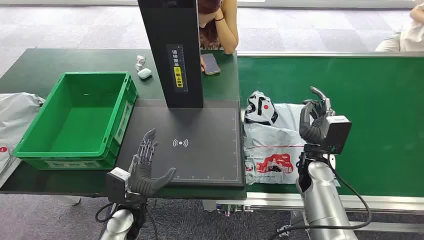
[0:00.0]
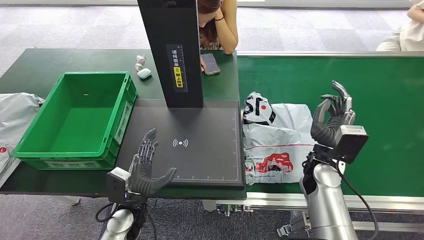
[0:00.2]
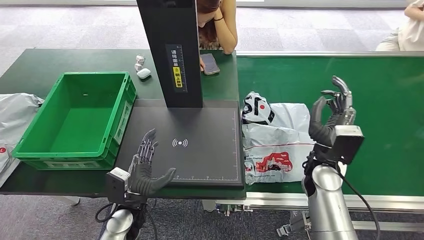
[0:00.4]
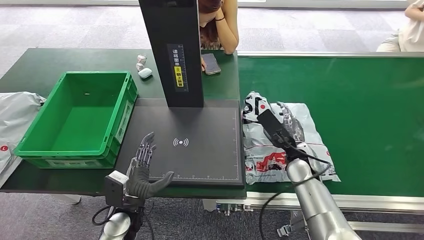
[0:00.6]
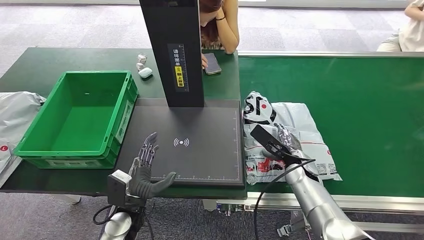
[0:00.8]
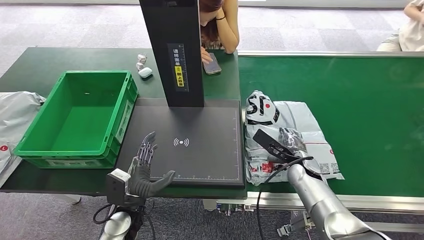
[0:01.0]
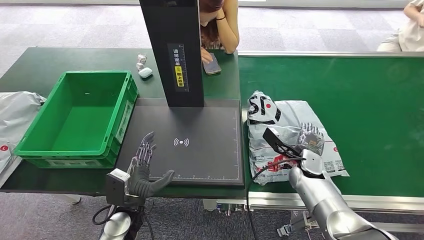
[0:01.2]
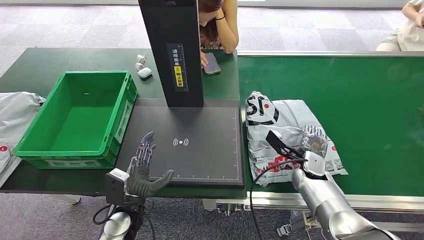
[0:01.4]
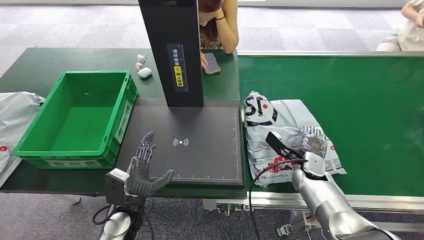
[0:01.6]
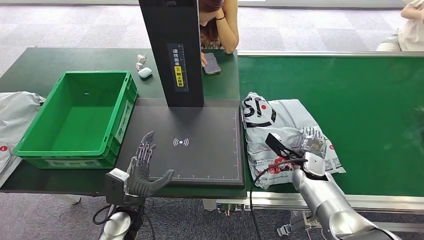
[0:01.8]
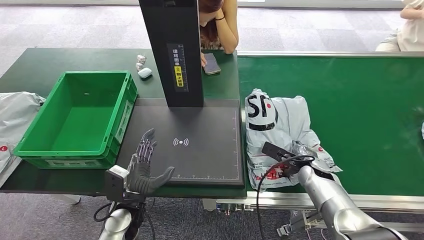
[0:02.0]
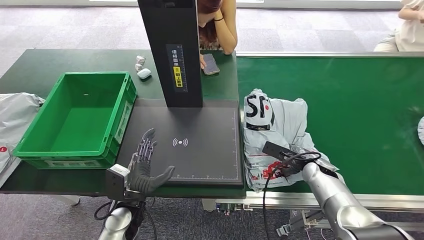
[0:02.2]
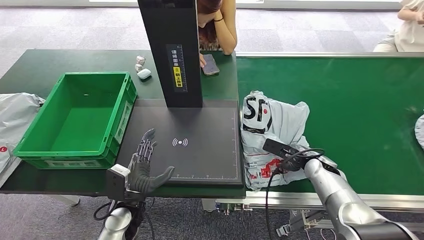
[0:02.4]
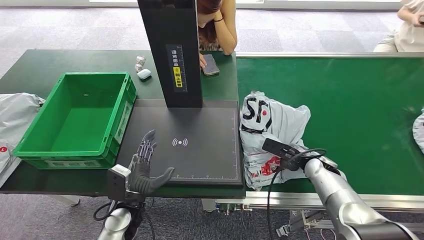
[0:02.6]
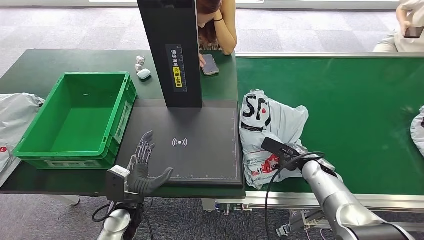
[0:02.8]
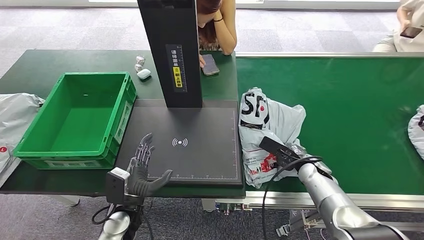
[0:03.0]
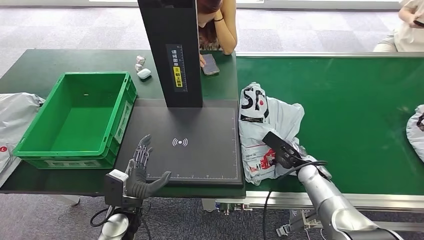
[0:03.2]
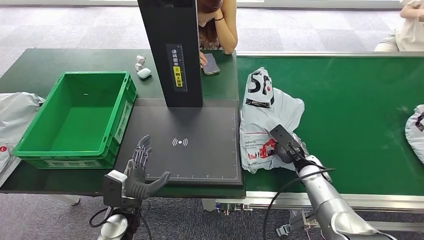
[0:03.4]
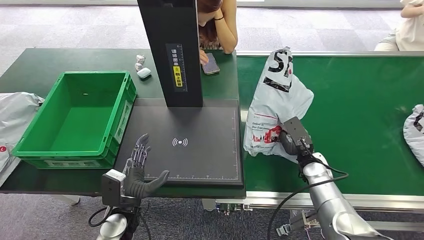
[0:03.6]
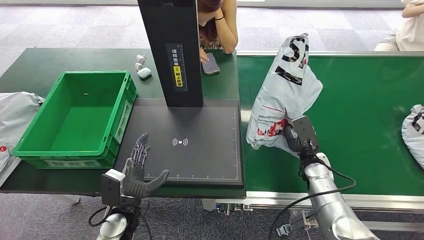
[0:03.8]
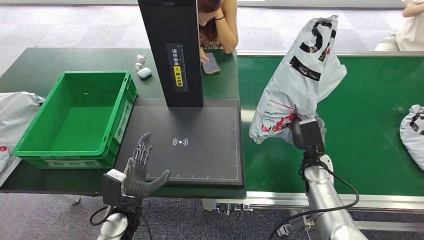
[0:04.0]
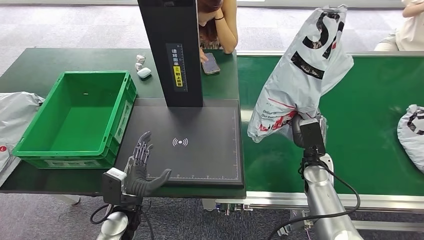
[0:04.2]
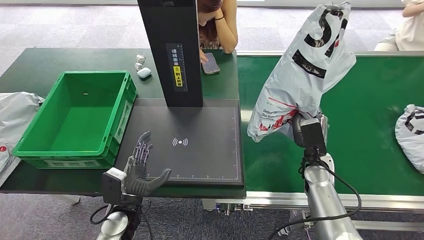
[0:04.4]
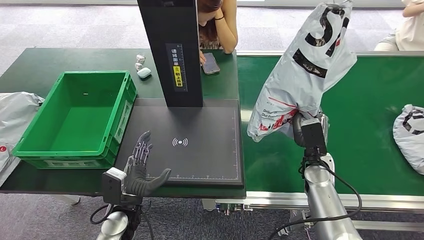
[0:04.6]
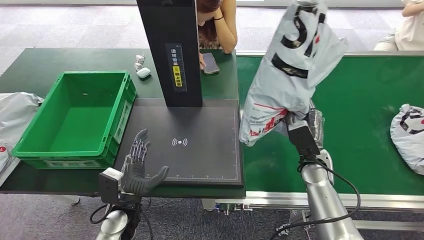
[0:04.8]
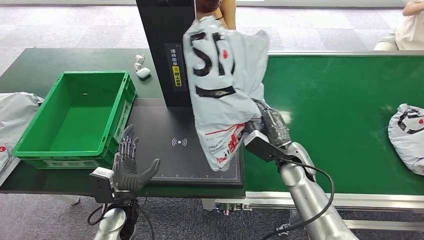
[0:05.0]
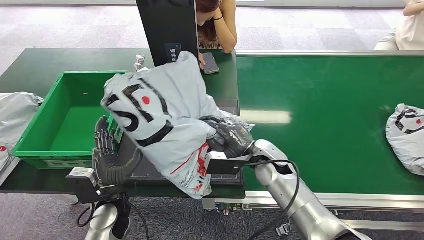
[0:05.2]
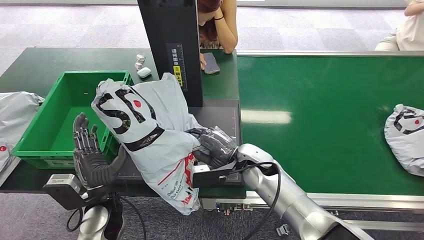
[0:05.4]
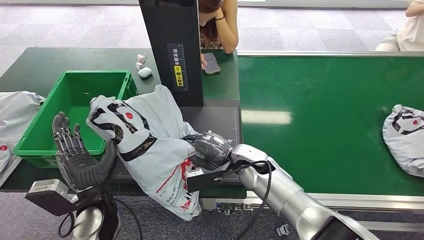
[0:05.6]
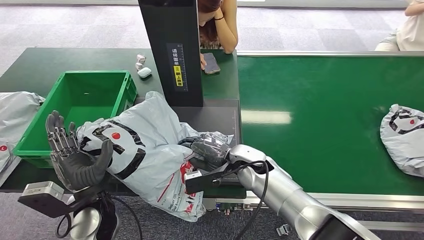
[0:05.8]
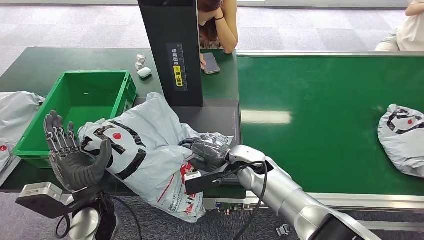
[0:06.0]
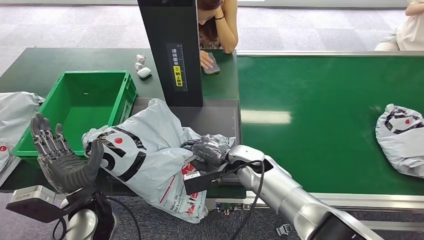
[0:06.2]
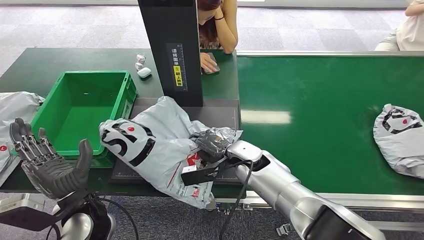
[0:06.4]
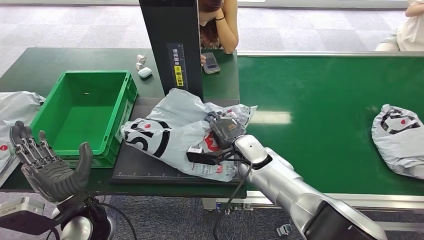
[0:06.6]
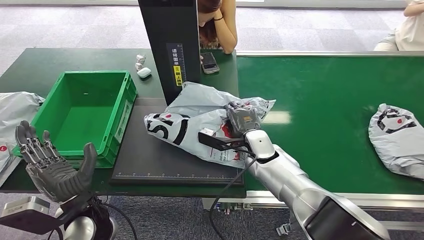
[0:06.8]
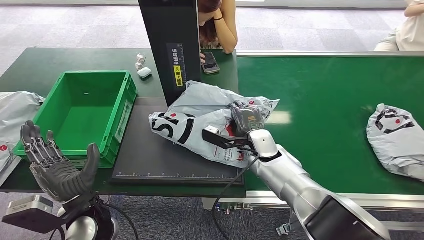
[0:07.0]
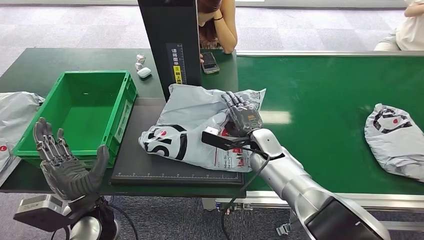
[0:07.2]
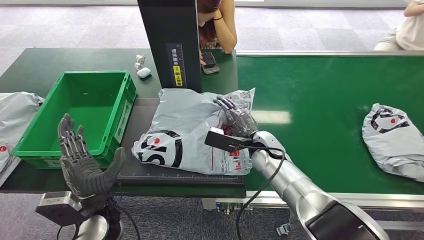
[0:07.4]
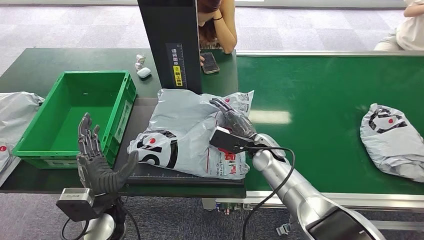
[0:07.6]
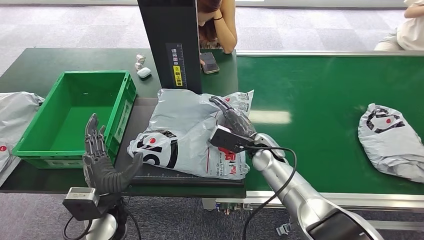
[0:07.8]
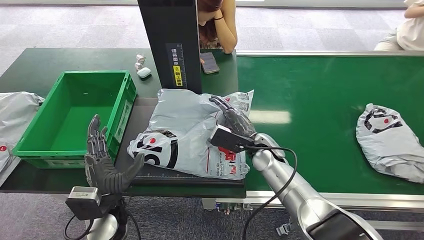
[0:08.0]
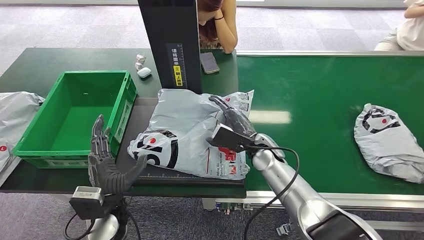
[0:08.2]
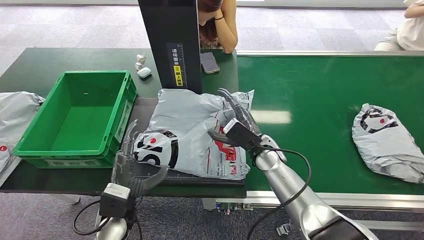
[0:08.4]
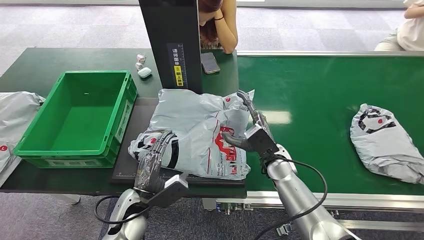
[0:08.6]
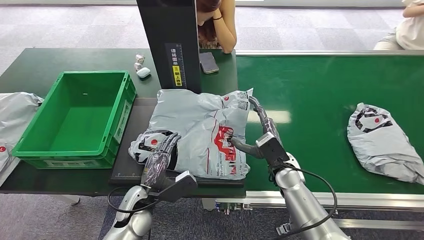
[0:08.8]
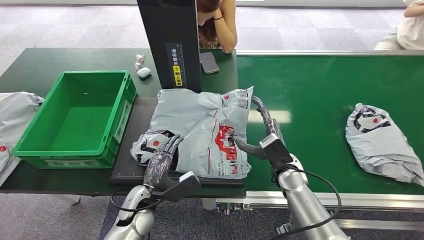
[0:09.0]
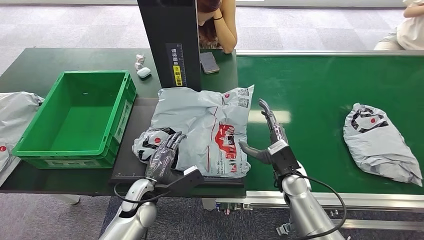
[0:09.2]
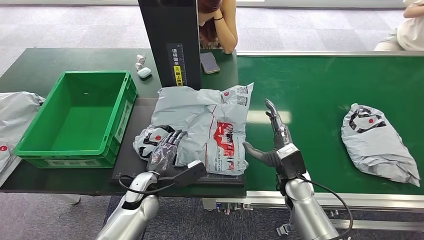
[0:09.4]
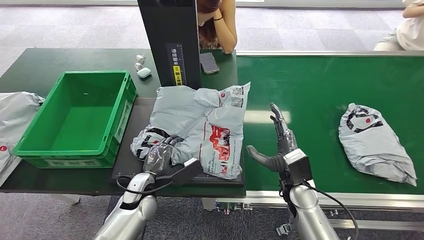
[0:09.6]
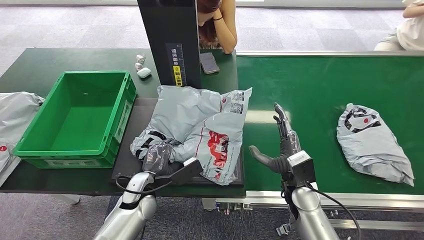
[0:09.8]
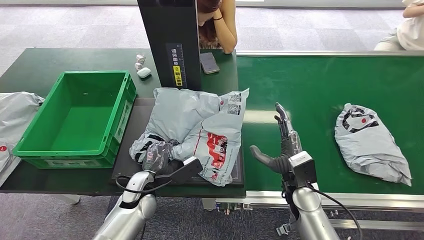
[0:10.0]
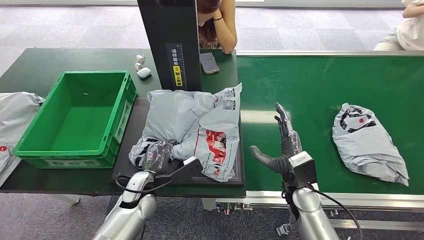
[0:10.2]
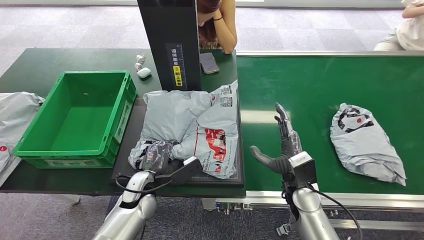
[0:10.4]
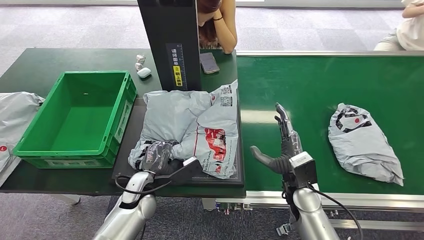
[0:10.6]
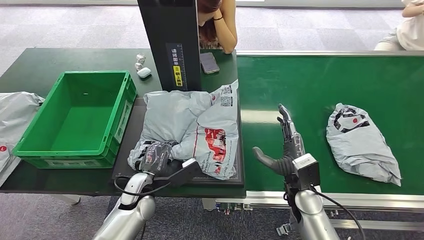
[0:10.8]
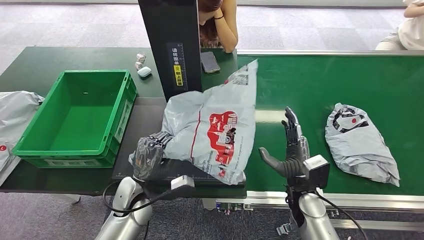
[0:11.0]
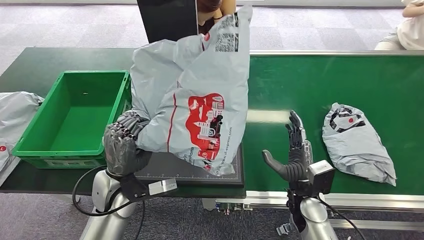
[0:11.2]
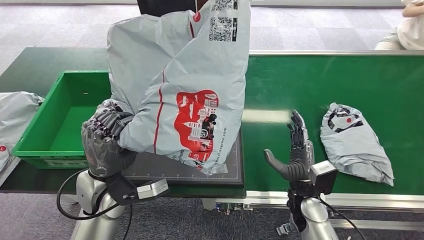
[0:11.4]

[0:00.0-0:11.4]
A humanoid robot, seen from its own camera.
Task of the whole recording: Weigh the package on the weighing device and place it in the left basket.
Step, 0:00.0 to 0:04.0: Pick up the package from the conveyor belt.
Step, 0:04.2 to 0:08.4: Place the package onto the inbound machine.
0:08.6 to 0:10.0: The left hand heads forward, covering roughly 5 cm. The right hand moves backward, approximately 5 cm.

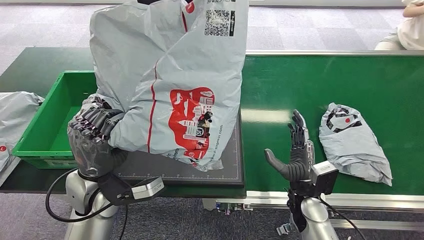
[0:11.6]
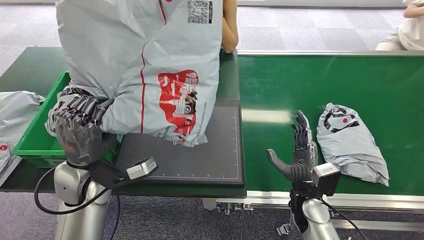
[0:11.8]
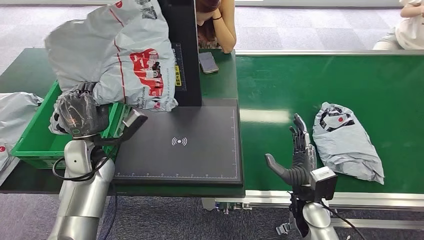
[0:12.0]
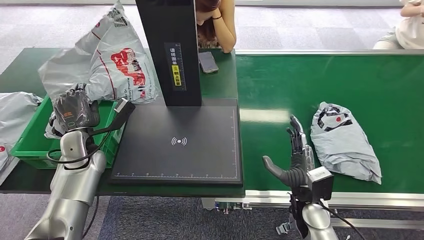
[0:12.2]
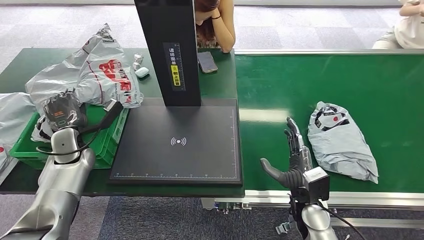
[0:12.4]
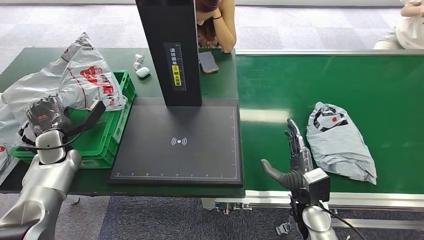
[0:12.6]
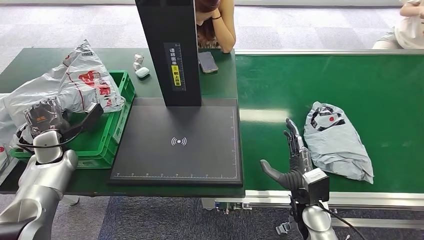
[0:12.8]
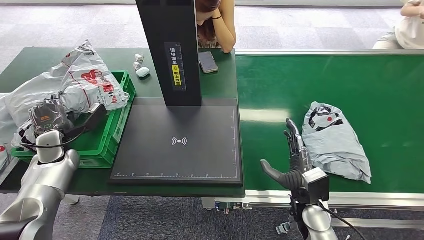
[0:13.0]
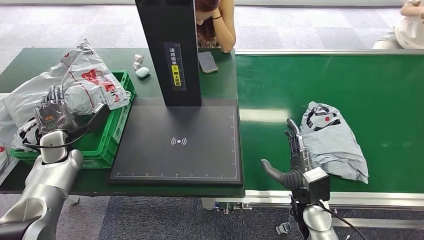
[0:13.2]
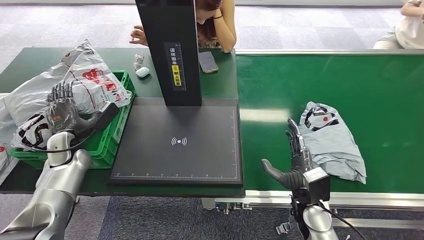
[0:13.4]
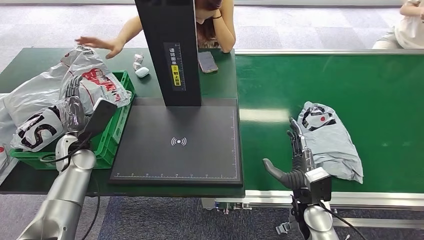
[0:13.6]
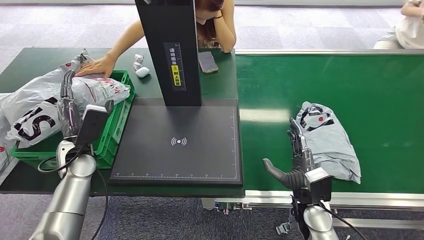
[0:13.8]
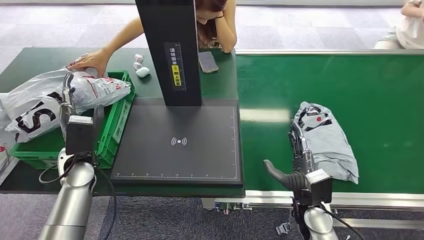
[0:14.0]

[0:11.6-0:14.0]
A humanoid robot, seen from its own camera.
Task of the whole recording: Weigh the package on the weighing device and place it in the left basket.
Step, 0:11.8 to 0:13.8: Place the package into the parcel locker.
0:12.8 to 0:14.0: The left hand moves to the right and backward, roughly 10 cm.

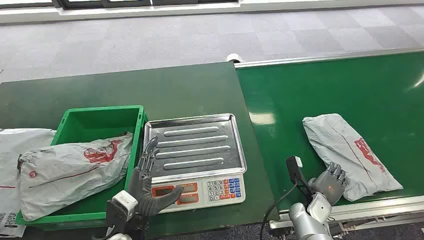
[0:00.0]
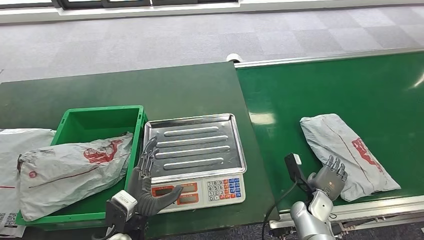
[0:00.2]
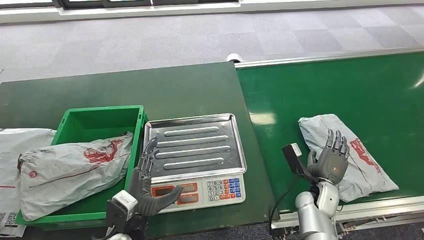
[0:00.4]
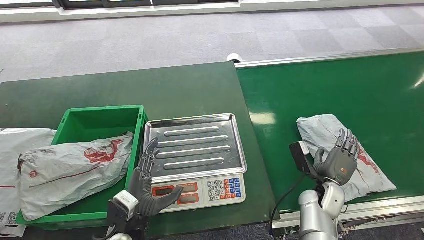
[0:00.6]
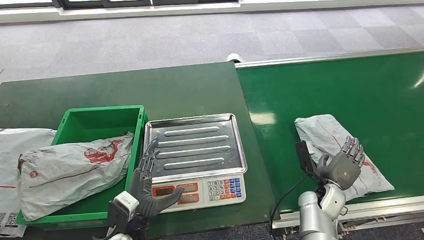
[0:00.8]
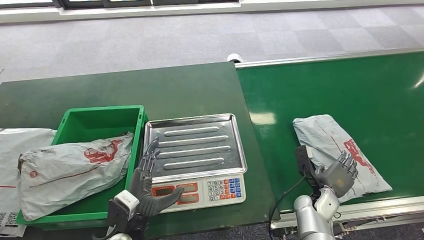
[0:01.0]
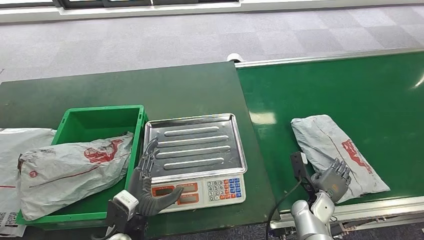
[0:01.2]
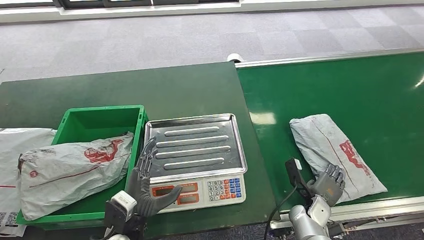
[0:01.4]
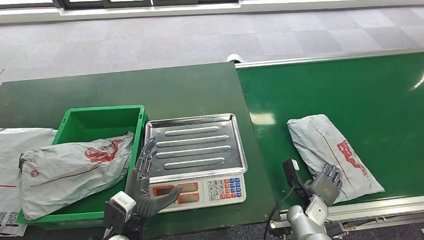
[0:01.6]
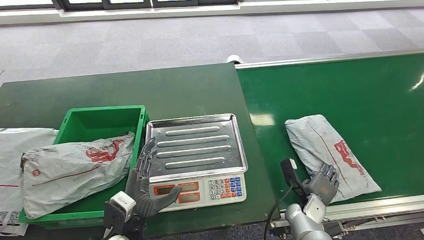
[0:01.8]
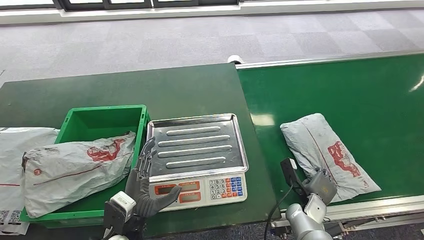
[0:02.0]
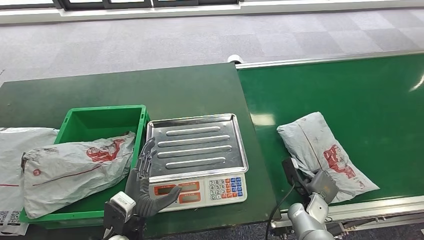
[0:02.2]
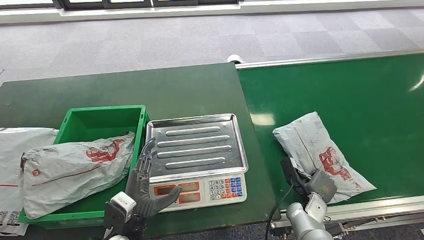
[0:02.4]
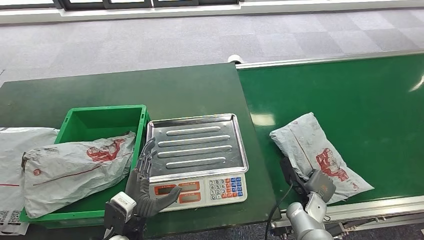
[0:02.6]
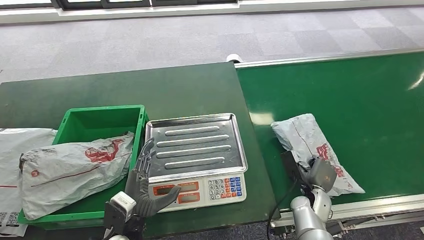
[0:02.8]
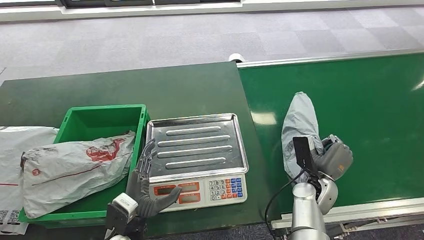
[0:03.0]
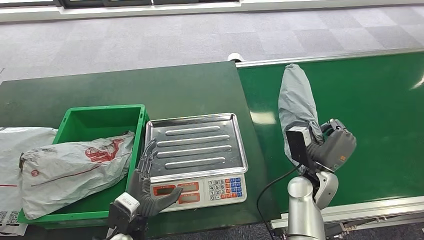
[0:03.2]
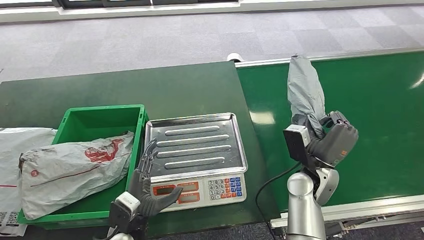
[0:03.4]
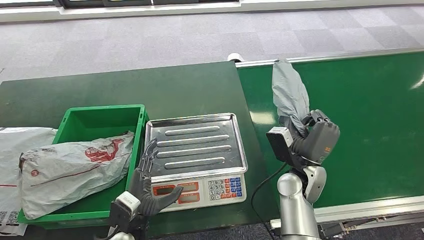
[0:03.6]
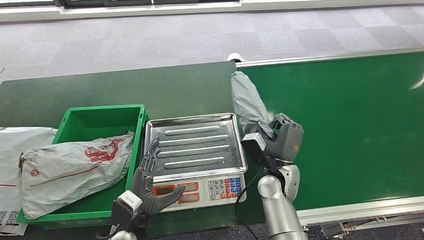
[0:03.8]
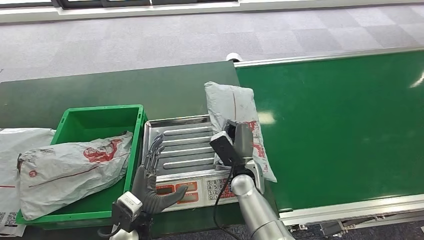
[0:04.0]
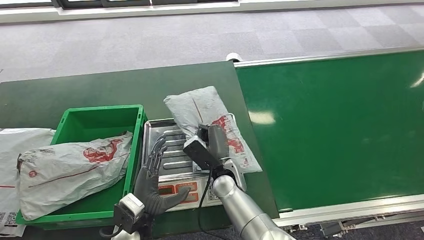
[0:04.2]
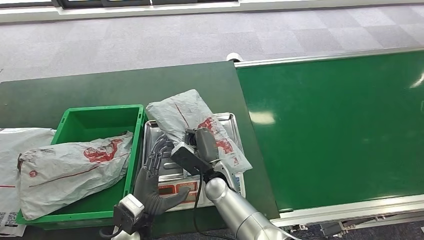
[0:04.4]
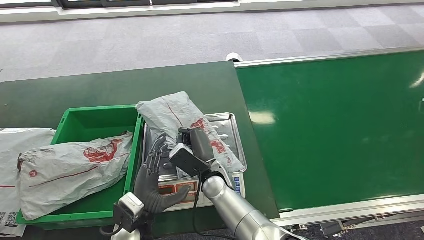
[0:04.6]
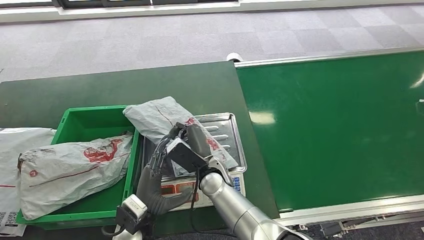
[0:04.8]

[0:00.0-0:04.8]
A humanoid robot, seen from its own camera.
Task of the whole recording: Weigh the package on the weighing device and place it in the left basket.
Step, 0:00.0 to 0:03.4: Pick up the package from the conveyor belt.
0:01.6 to 0:03.2: The right hand travels upward by roughly 15 cm.
